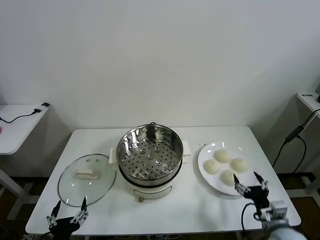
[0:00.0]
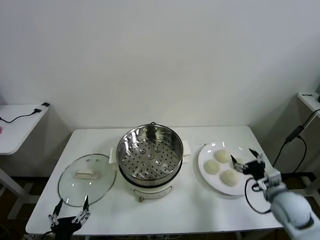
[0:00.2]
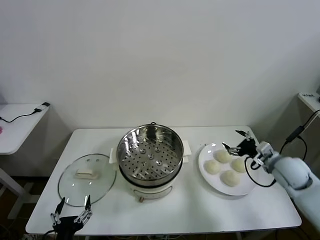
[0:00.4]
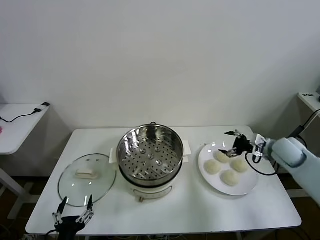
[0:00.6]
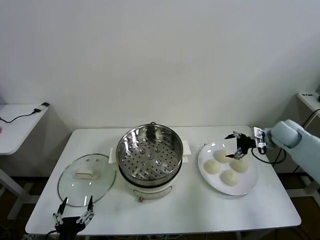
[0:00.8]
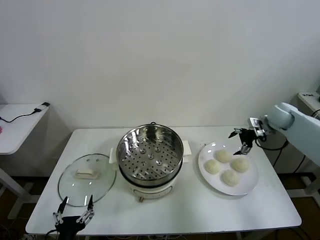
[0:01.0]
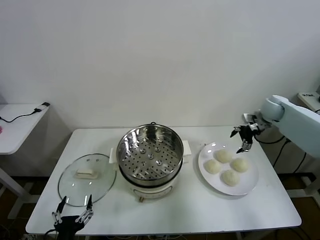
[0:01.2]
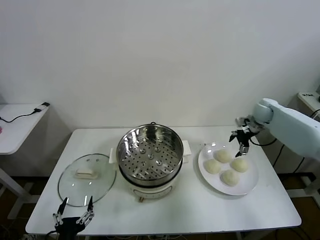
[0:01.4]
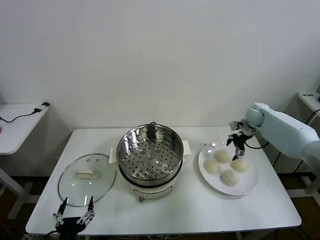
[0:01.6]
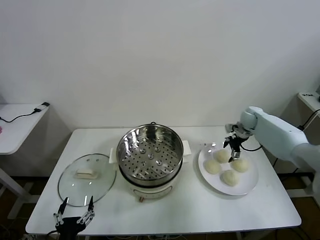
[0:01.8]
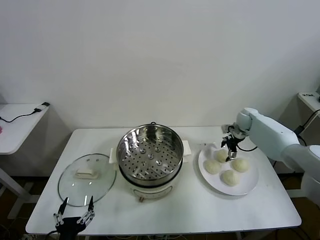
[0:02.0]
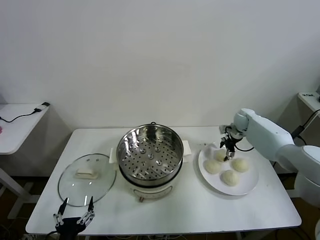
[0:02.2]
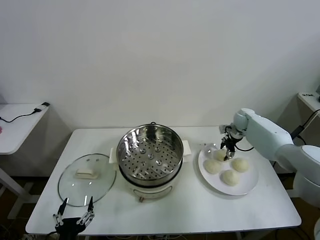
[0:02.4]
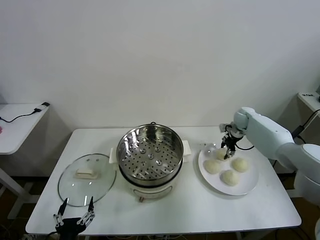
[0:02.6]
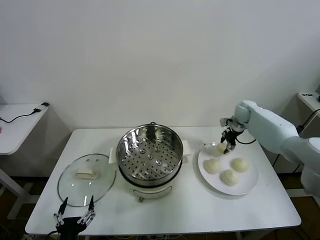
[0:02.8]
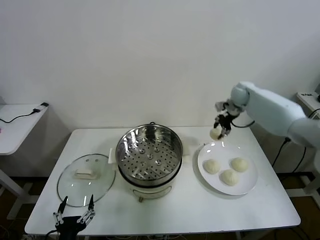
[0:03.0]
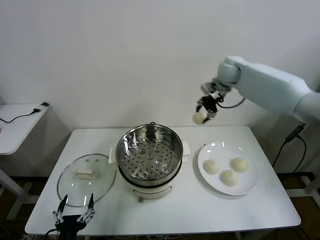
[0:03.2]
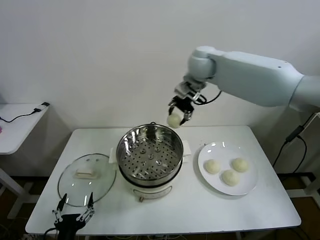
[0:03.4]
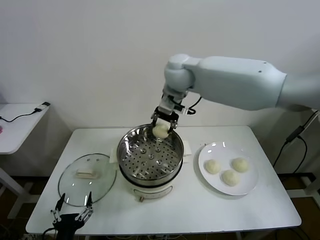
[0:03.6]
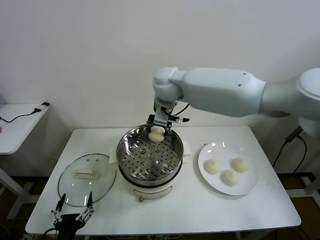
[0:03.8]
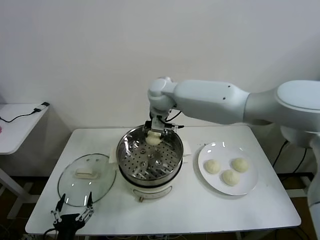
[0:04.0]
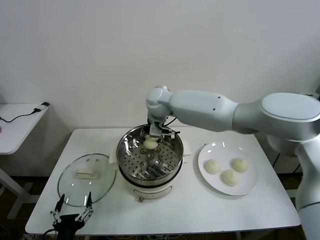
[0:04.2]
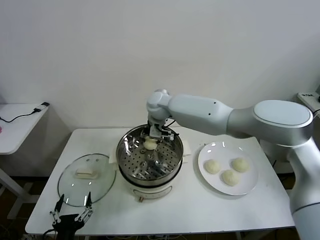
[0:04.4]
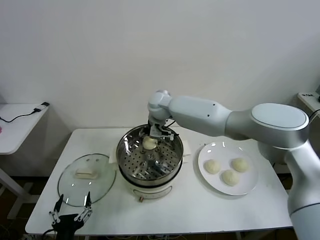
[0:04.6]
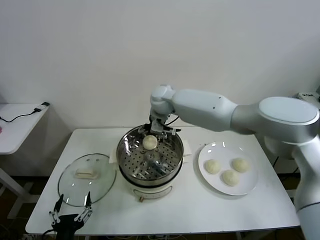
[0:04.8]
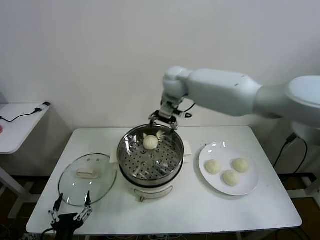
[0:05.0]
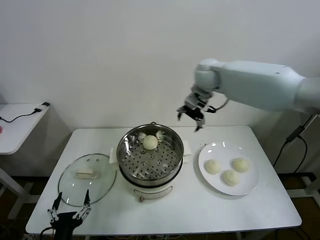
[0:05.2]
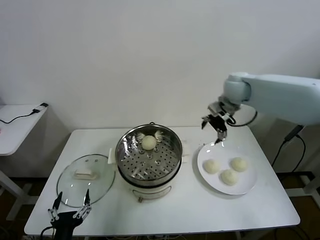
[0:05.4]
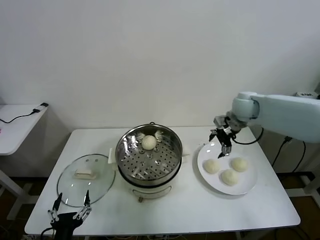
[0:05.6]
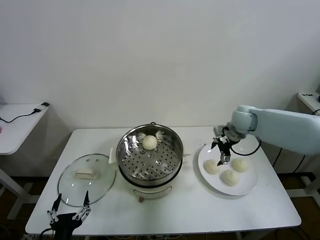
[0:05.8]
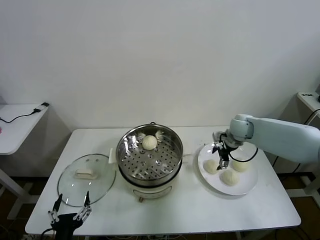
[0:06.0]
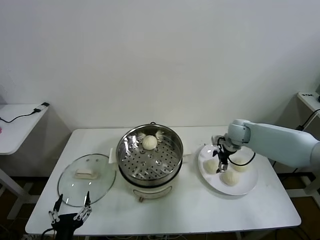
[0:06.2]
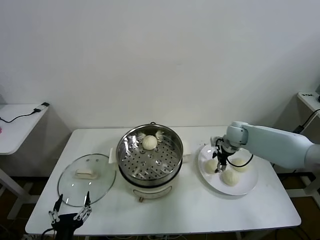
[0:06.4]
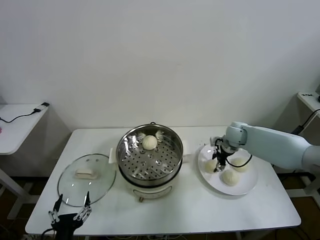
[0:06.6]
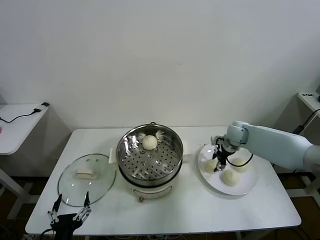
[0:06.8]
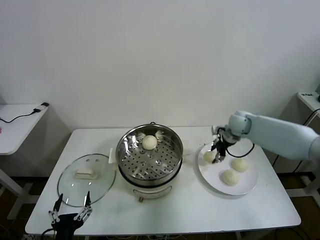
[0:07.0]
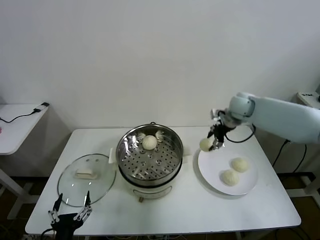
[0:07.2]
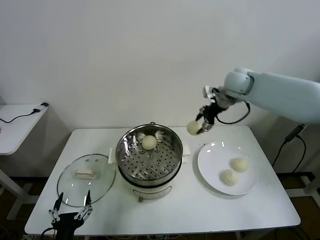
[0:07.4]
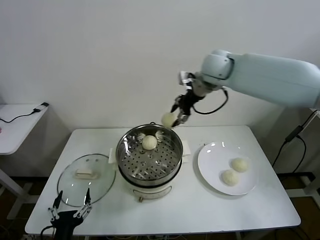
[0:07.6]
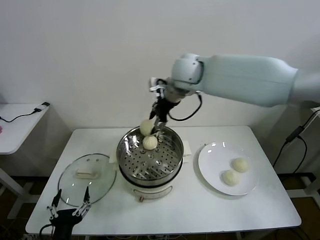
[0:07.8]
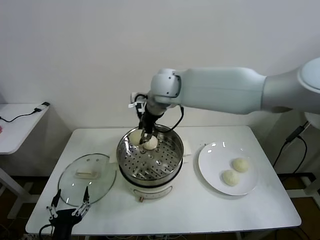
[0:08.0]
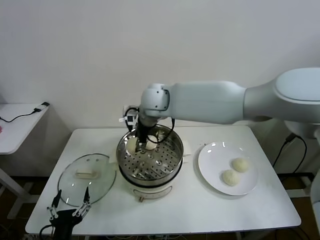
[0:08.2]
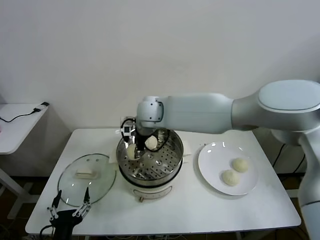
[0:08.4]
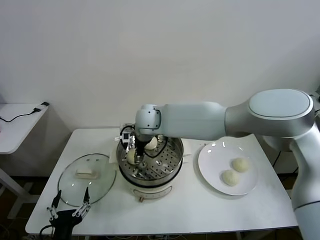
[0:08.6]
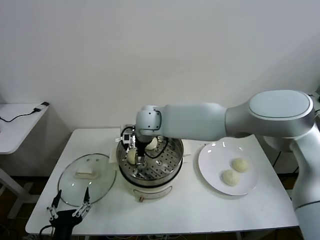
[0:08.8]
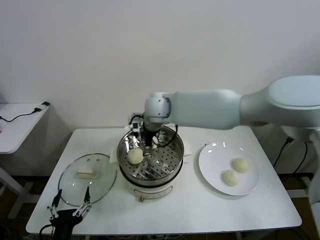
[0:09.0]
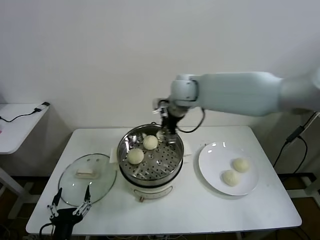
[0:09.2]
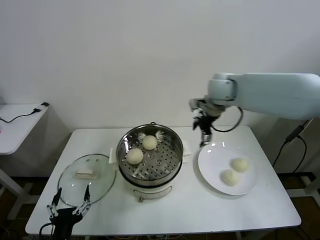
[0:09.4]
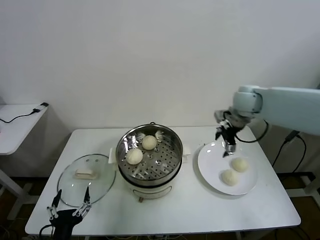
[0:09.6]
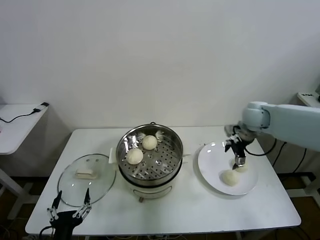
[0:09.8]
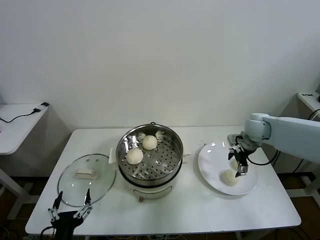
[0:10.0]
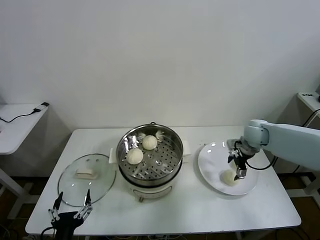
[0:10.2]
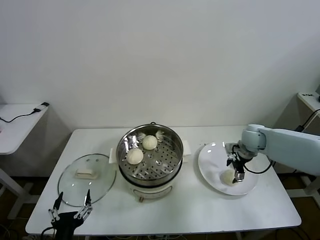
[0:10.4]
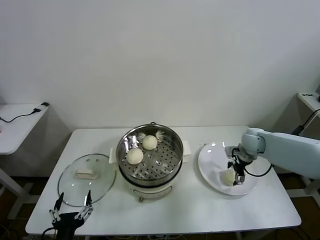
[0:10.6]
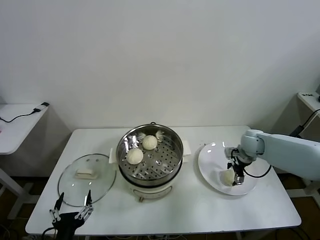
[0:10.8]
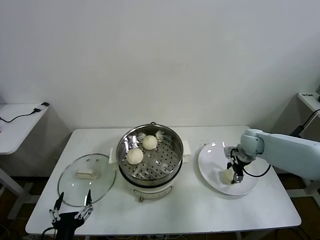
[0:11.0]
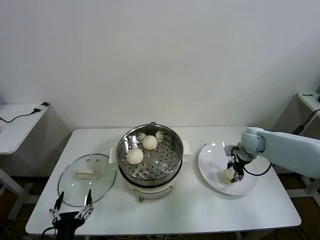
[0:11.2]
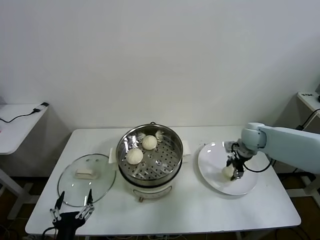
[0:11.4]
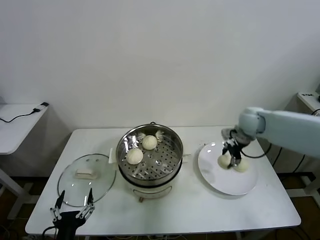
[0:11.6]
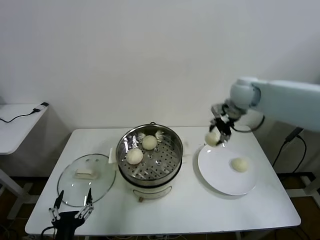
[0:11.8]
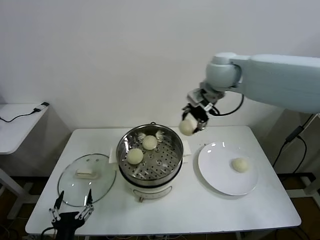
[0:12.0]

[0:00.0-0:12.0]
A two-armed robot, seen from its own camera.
Task of the whole recording: take steamed baozi put them in steamer then cover it.
Step, 0:00.0 to 0:02.4: Grasp the baozi in the plate with right gripper.
Step, 0:02.8 to 0:04.6: Place the baozi on the steamer with right gripper.
Step, 0:04.8 to 0:06.6: Grasp the baozi in the plate with right gripper.
Step, 0:06.8 to 0:08.6: Place the baozi on the steamer with right gripper.
Step, 0:08.8 to 0:11.0: Grasp the baozi in the plate with right gripper.
0:01.6 to 0:03.0: The right gripper shifts roughly 20 cm upward and to the left, and closes its fingers.
0:03.0 to 0:04.4: The right gripper shifts some 30 cm to the left.
0:04.4 to 0:06.0: The right gripper moves to the right, some 30 cm, and opens.
0:06.0 to 0:07.6: The right gripper is displaced upward and to the left by approximately 30 cm, and closes its fingers.
0:07.6 to 0:09.0: The right gripper travels to the left and downward by some 15 cm, and opens up.
0:09.0 to 0:10.4: The right gripper shifts approximately 35 cm to the right and downward.
0:10.4 to 0:12.0: The right gripper is displaced upward and to the left by about 35 cm, and closes up.

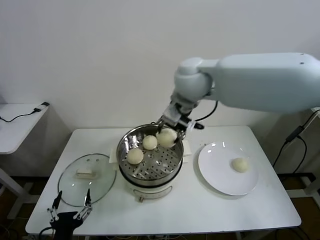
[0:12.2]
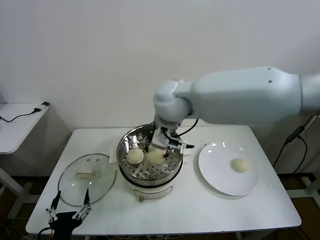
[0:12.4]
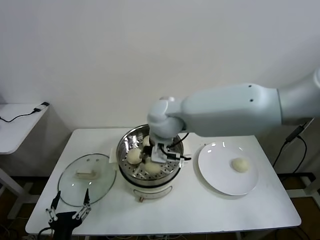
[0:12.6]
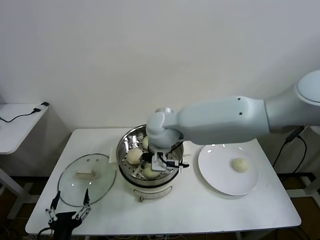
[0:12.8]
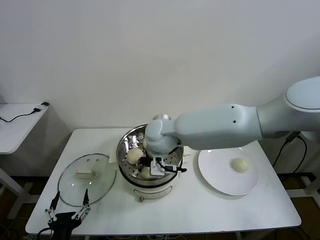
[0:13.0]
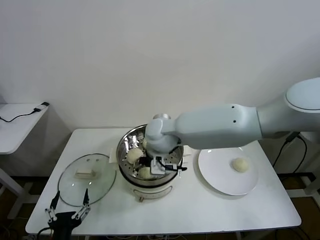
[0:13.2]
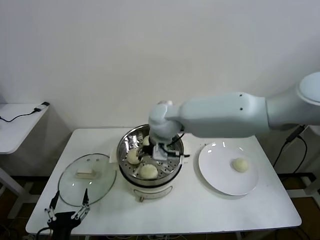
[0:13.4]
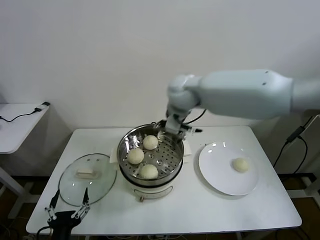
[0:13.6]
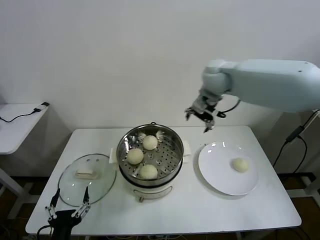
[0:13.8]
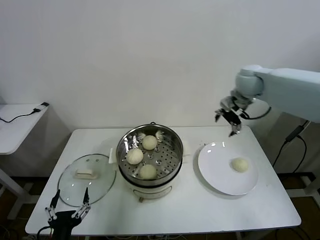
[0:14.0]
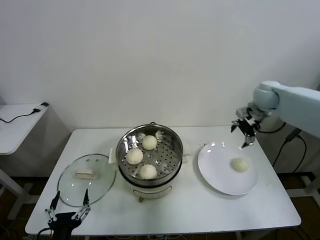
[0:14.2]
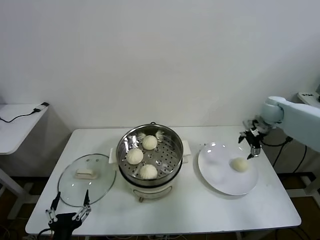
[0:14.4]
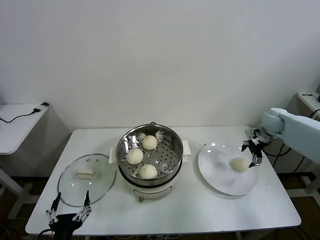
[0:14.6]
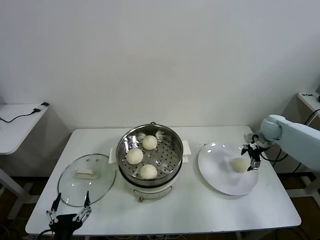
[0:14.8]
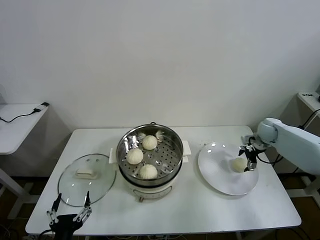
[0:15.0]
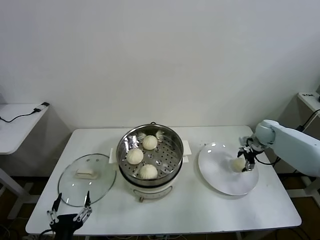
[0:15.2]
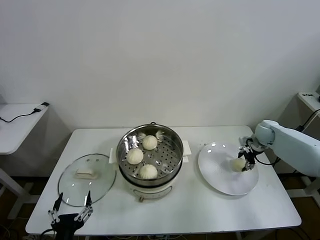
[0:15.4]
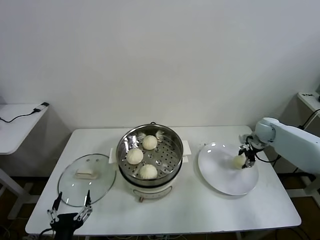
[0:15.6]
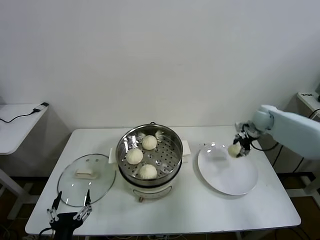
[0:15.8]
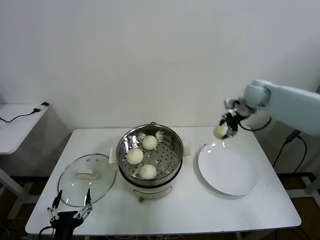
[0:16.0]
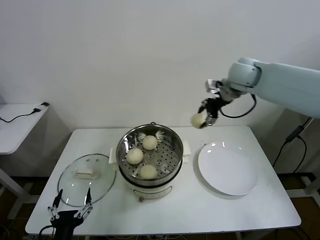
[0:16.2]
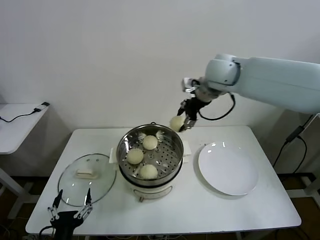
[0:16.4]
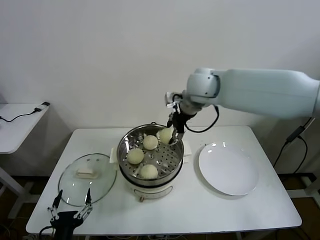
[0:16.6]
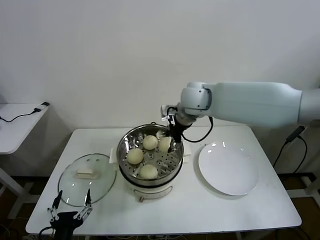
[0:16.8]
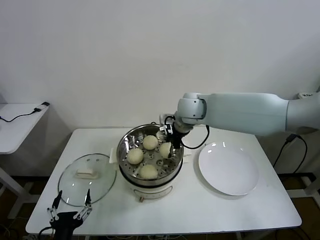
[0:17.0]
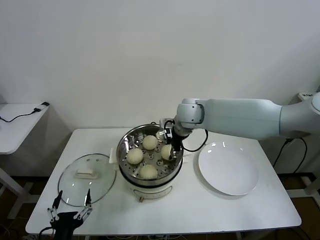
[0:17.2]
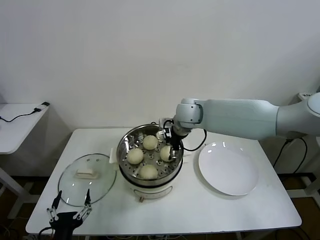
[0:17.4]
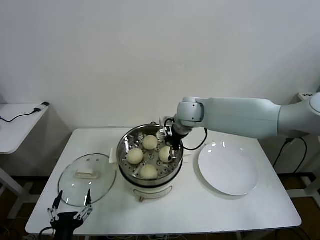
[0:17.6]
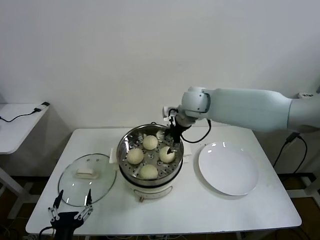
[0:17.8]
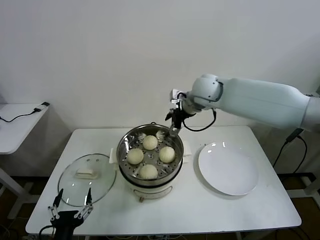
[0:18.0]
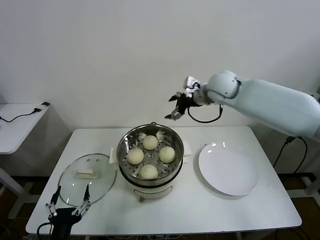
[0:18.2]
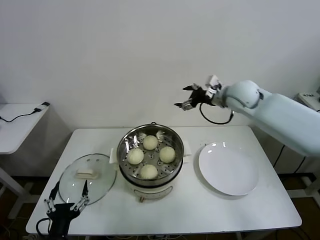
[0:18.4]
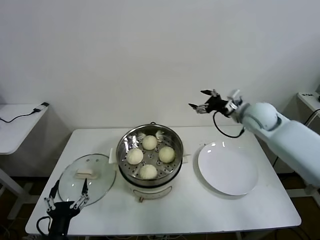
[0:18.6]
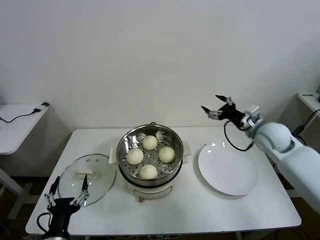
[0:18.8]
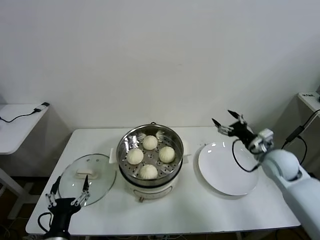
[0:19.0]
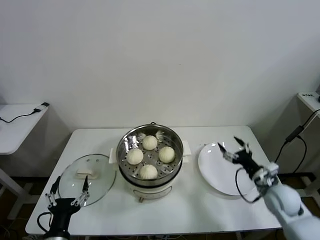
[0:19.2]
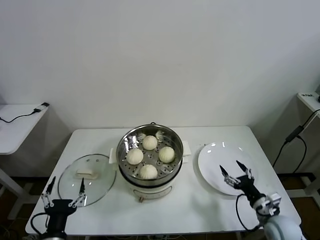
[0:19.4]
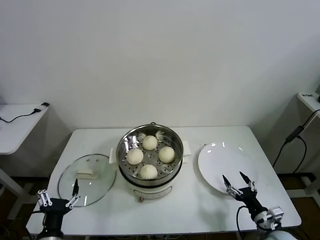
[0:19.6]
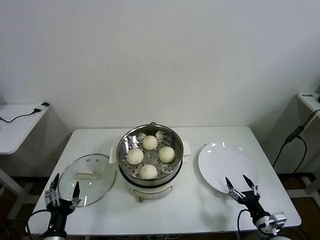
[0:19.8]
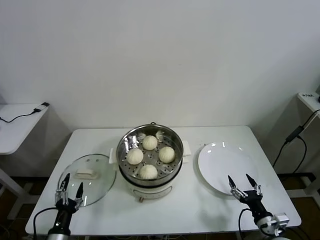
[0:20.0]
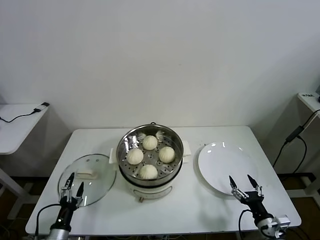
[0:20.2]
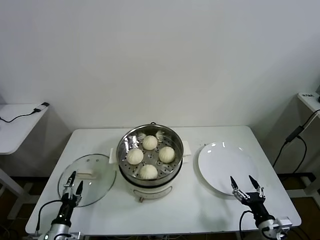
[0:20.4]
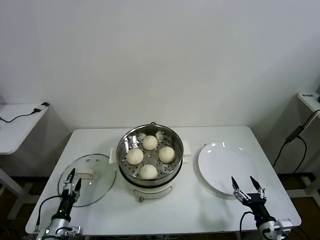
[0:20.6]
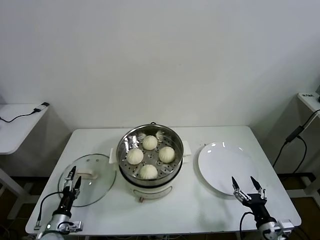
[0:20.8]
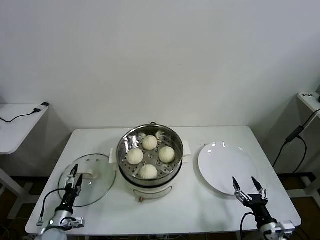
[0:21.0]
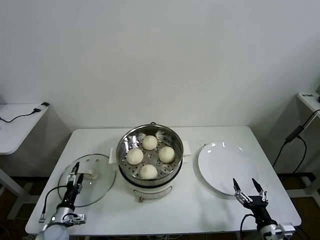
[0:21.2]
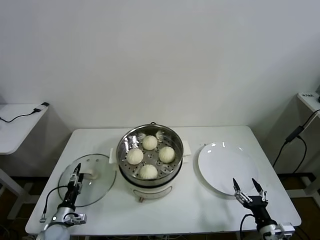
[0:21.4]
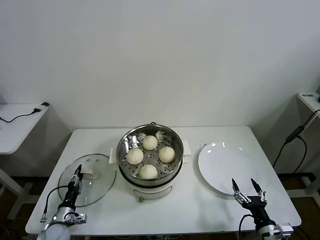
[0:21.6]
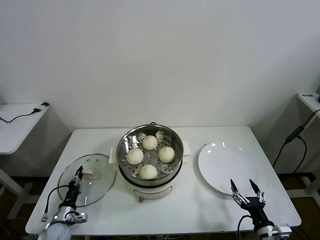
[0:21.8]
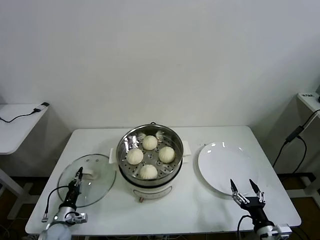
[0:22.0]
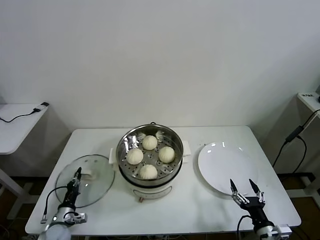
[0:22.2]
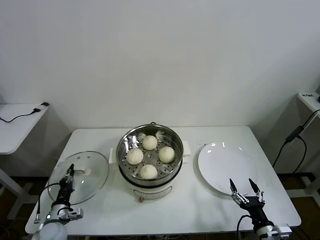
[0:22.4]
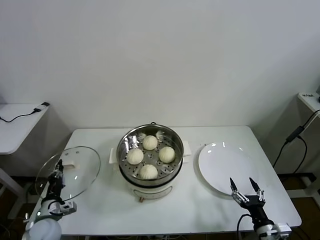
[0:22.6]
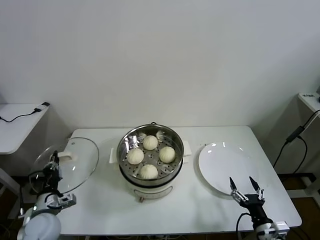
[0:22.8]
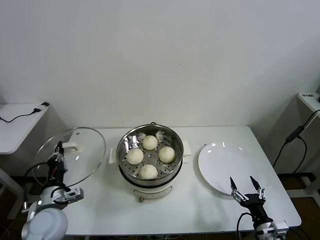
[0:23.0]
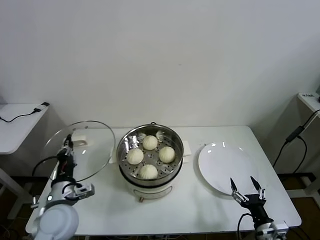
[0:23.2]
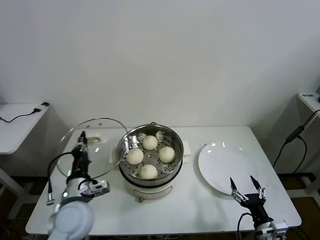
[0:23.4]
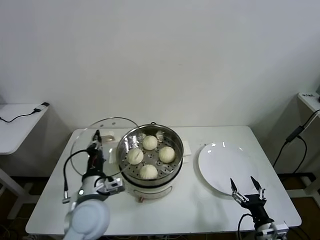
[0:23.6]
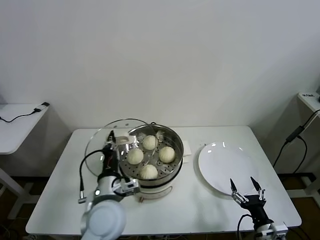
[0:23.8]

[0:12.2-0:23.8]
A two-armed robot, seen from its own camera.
Task of the whole recording: take steamed baozi put them in steamer then cover it.
Step, 0:12.2 to 0:13.2: Place the baozi on the steamer with right gripper.
Step, 0:13.4 to 0:15.4: Grasp the baozi in the plate with right gripper.
Step, 0:15.6 to 0:17.6: Place the baozi on the steamer with right gripper.
Step, 0:17.8 to 0:22.0: Grasp the pot lid with left gripper.
0:12.2 to 0:13.6: The right gripper shifts roughly 5 cm forward, reaches some 15 cm downward, then returns, and opens.
0:13.6 to 0:15.0: The right gripper is displaced to the right and downward by some 40 cm.
0:15.0 to 0:16.6: The right gripper moves to the left and upward, some 40 cm, and closes.
0:16.6 to 0:18.0: The right gripper moves some 10 cm downward and comes back, and opens its fingers.
0:18.0 to 0:19.4: The right gripper shifts approximately 50 cm downward, backward and to the right.
0:19.4 to 0:21.0: The right gripper shifts roughly 10 cm backward. Meanwhile the left gripper shifts roughly 20 cm downward, forward and to the left.
0:21.0 to 0:22.4: The left gripper closes up.
0:22.4 to 0:23.8: The left gripper moves to the right and upward, roughly 35 cm.
